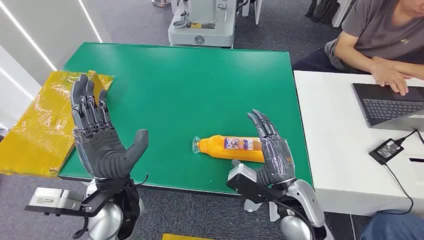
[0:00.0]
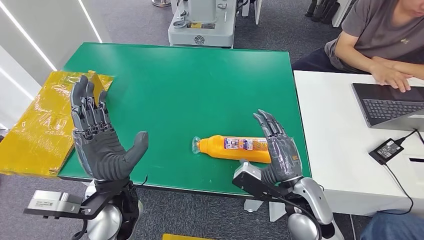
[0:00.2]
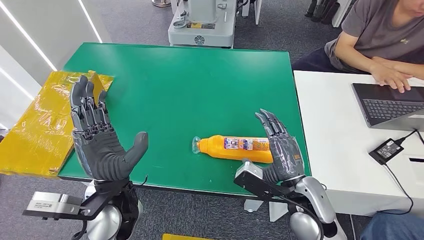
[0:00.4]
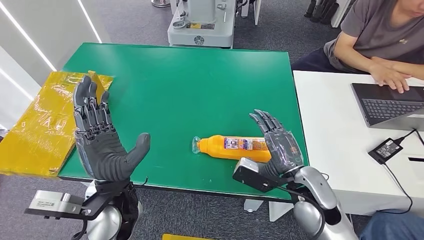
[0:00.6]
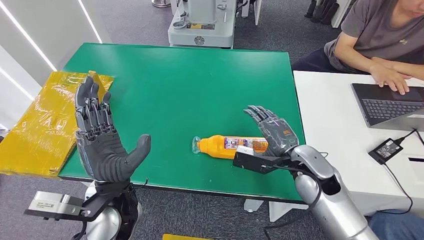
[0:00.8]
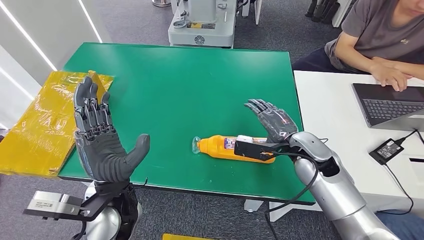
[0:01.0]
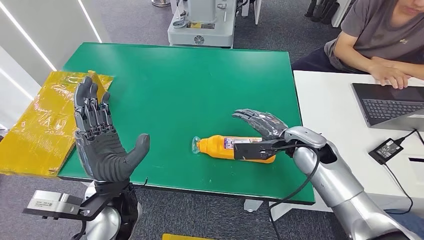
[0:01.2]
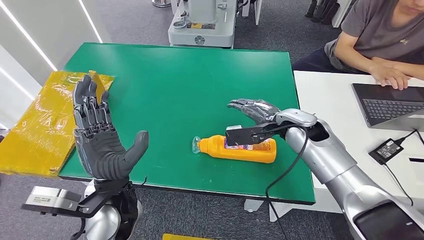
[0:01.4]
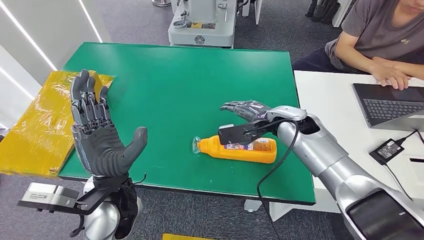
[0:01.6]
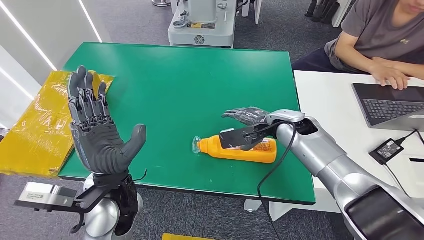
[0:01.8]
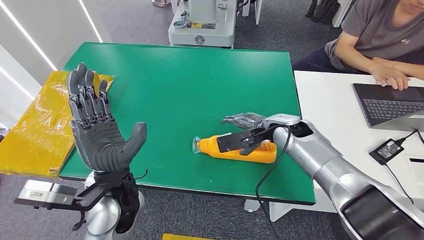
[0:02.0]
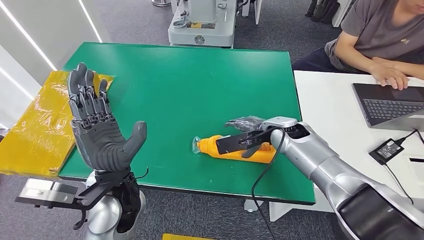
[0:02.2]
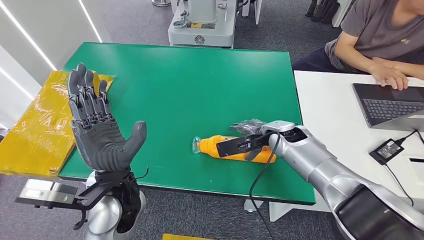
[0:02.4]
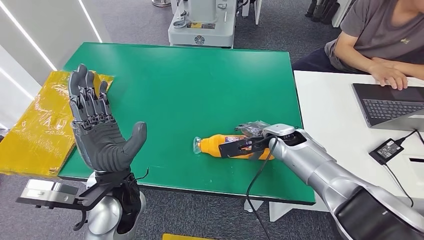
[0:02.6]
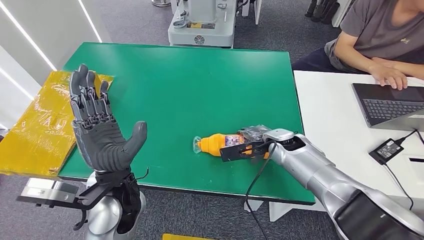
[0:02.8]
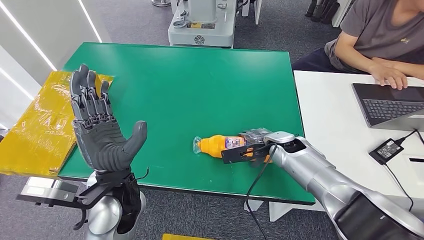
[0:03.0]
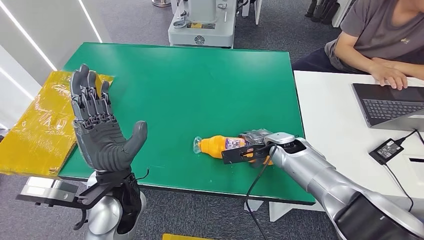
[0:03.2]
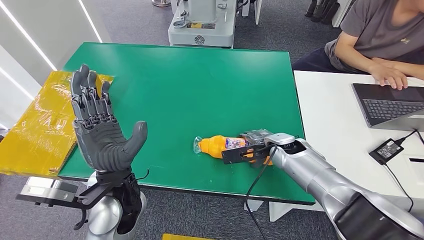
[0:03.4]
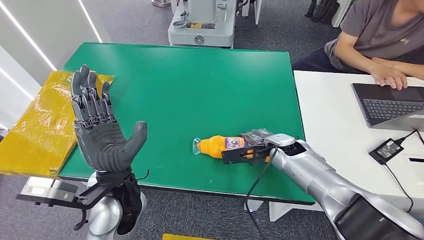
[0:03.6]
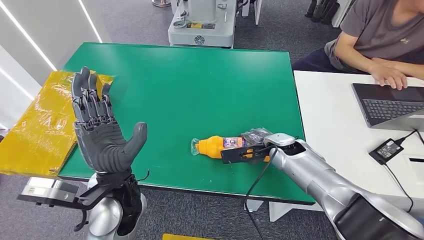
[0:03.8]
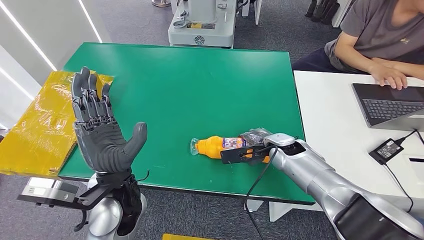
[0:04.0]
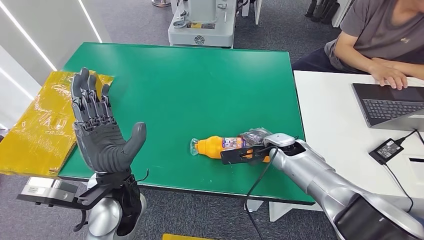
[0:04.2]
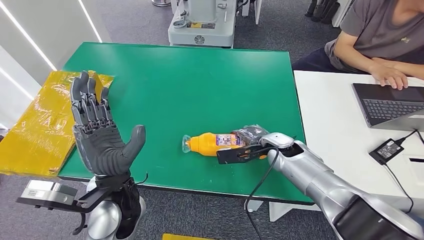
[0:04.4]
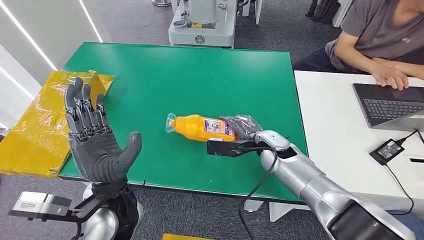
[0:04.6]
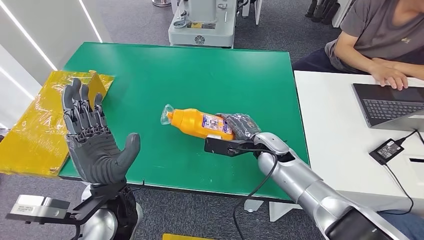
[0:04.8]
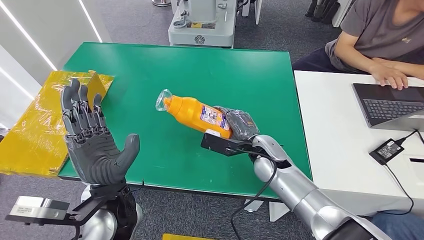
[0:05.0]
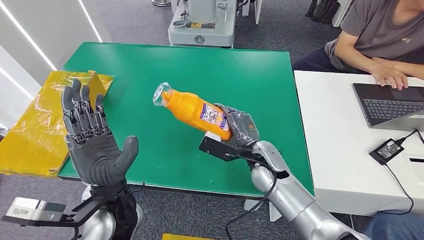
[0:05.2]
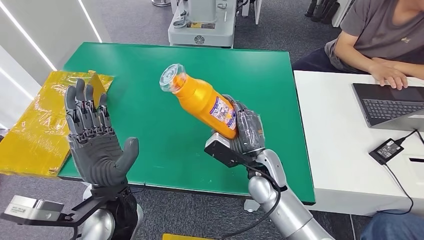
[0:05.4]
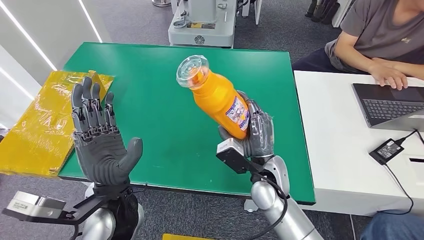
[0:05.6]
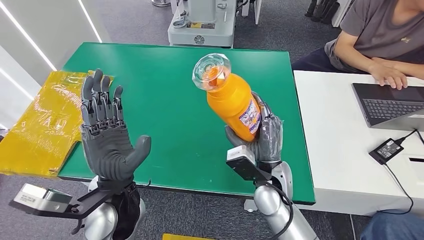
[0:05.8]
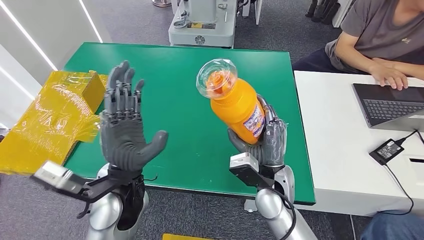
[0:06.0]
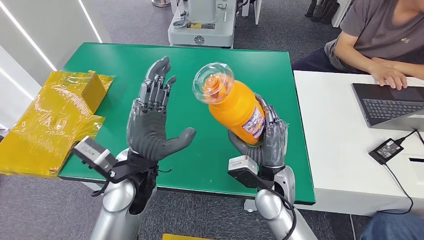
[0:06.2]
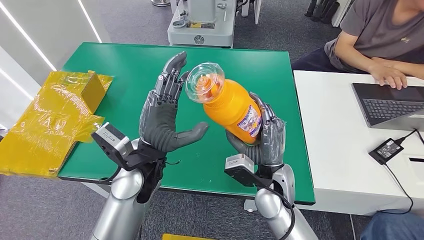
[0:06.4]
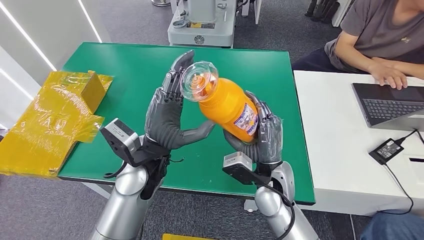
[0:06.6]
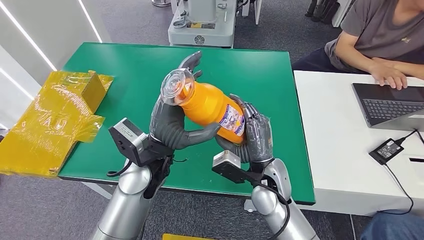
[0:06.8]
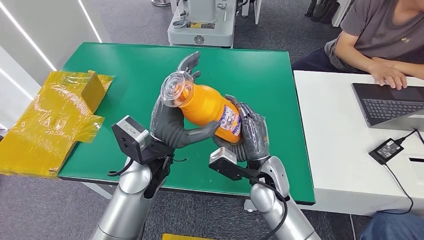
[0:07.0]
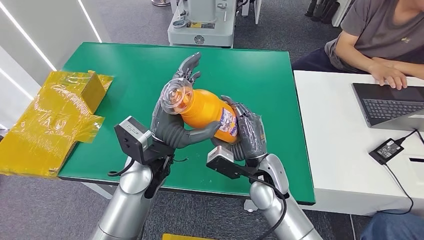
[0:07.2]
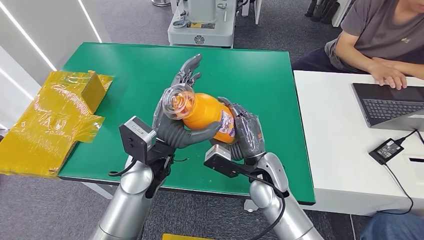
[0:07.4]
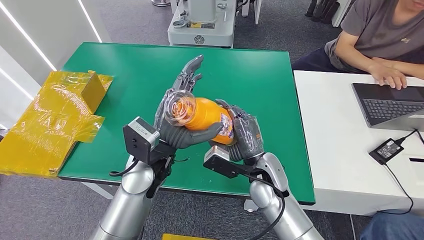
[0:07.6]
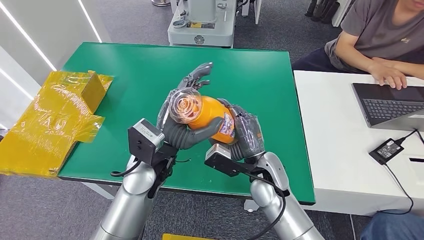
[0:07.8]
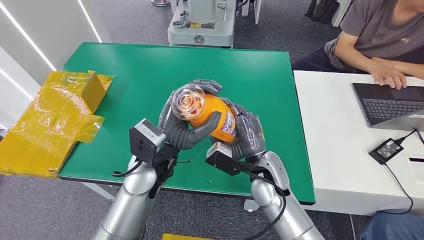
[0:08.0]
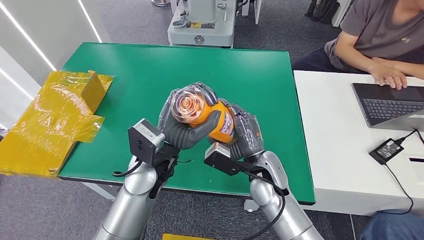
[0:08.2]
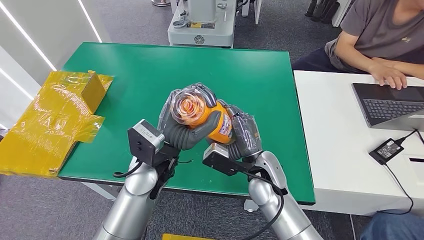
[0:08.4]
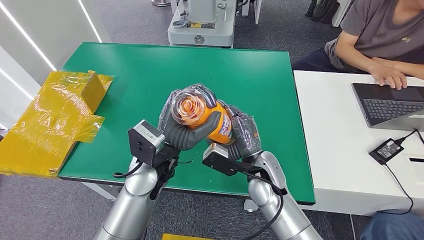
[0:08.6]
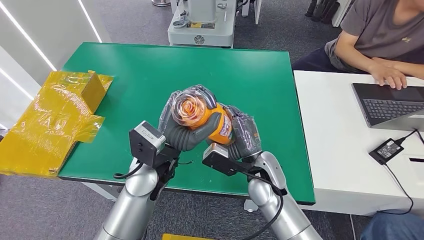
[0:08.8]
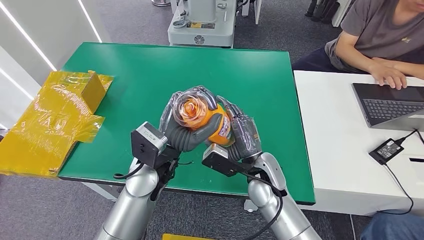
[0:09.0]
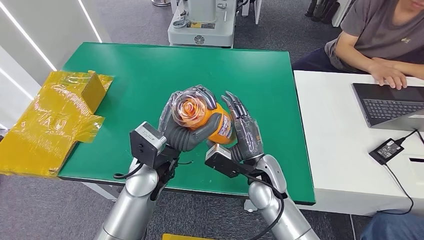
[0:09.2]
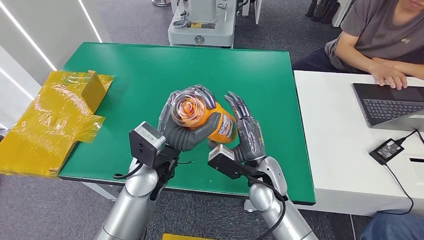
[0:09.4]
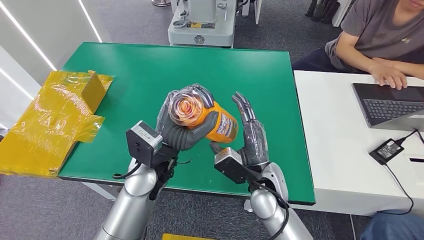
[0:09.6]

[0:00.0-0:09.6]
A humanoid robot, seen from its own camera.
Step, 0:00.0 to 0:05.2: Pick up the bottle from the table.
0:01.6 to 0:03.2: The right hand goes roughly 5 cm downward.
0:03.2 to 0:04.8: The right hand travels to the left by about 5 cm.
0:08.0 to 0:09.6: The hands stay close to where they were, moving slightly.

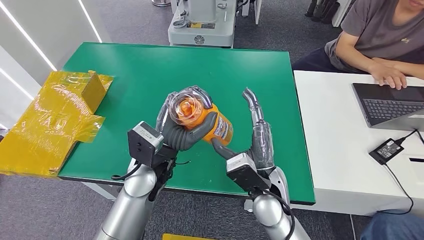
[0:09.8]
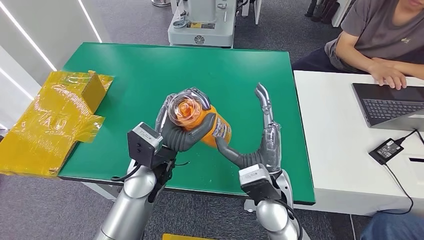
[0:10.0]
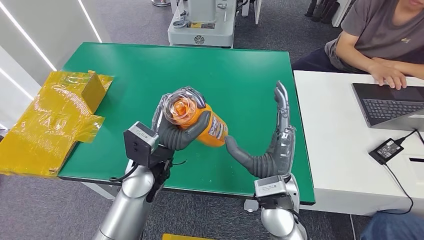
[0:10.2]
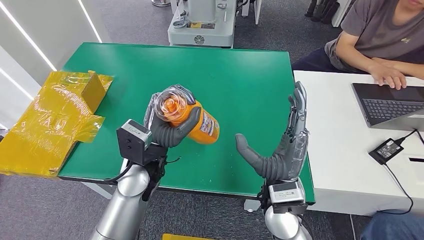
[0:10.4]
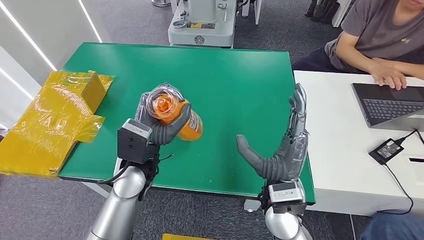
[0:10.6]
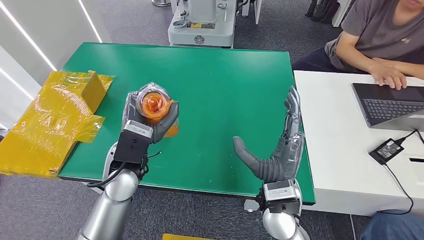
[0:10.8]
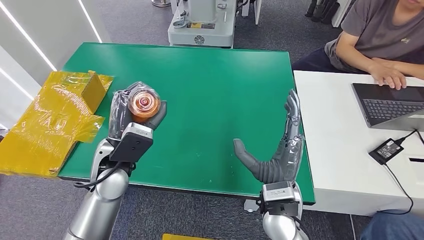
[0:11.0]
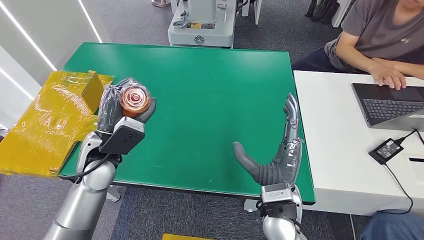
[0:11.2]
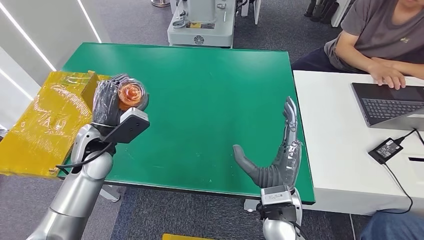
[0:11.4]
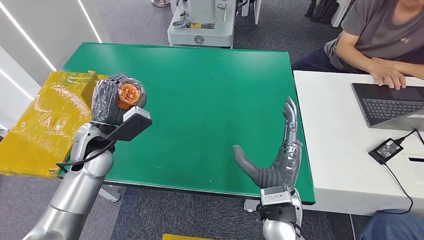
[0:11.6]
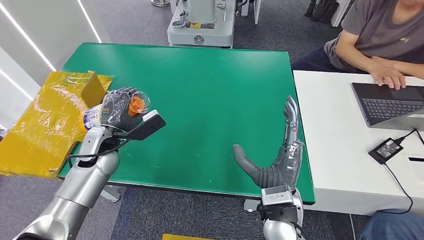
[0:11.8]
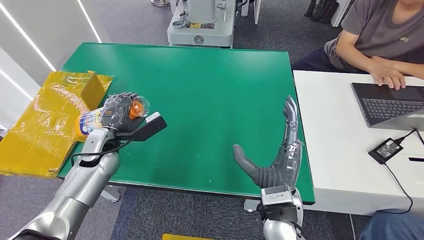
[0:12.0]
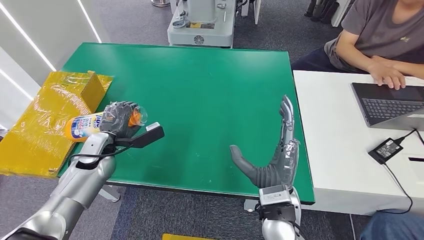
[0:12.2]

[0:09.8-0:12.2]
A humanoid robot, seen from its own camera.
Step, 0:09.8 to 0:12.2: Turn the bottle to the front side.
0:09.8 to 0:11.0: The left hand heads to the left, covering some 10 cm.
0:11.0 to 0:12.2: The left hand is displaced to the left by about 15 cm.
